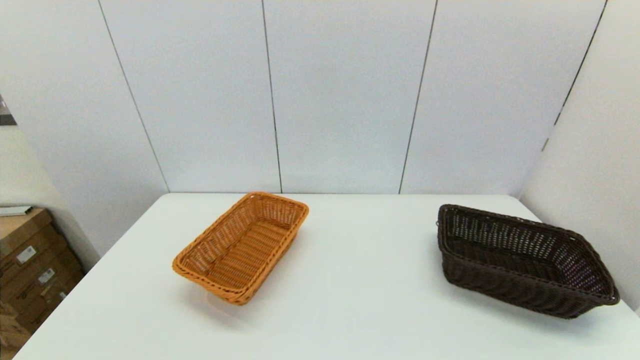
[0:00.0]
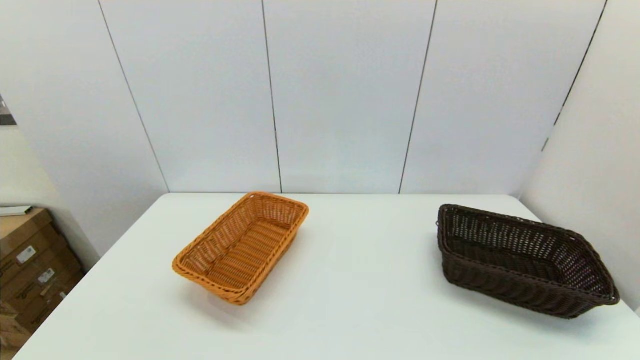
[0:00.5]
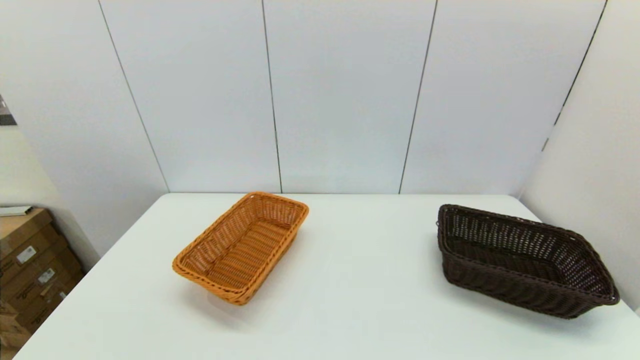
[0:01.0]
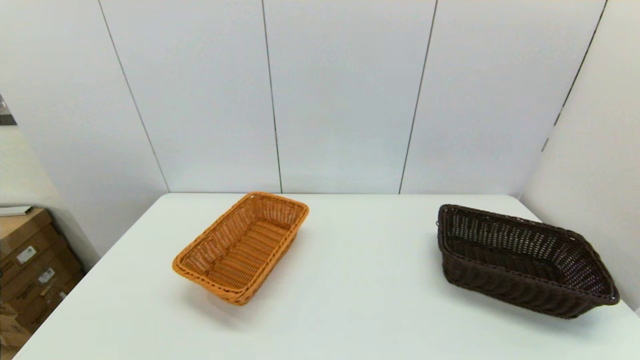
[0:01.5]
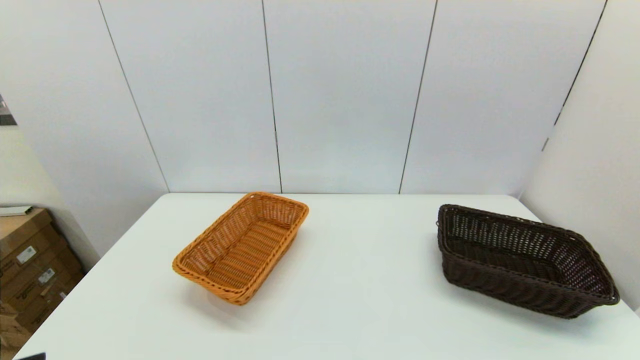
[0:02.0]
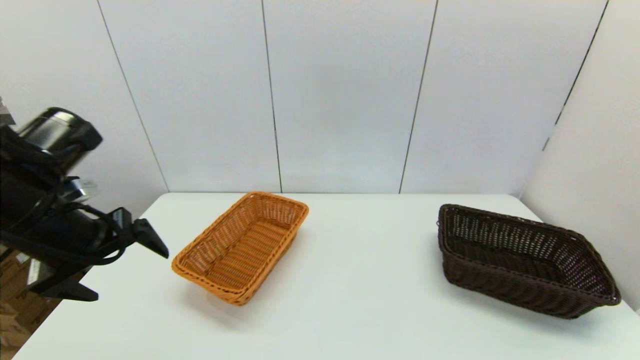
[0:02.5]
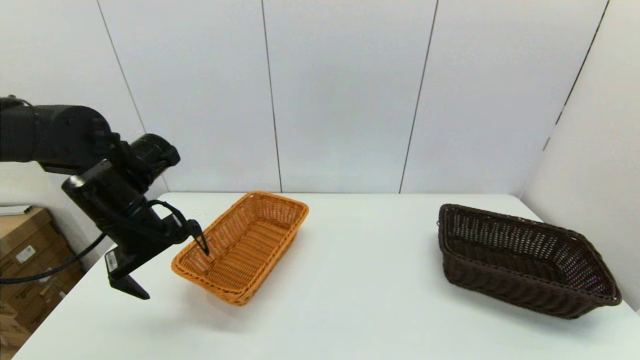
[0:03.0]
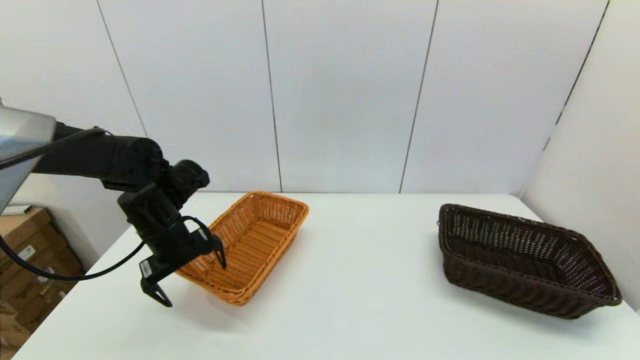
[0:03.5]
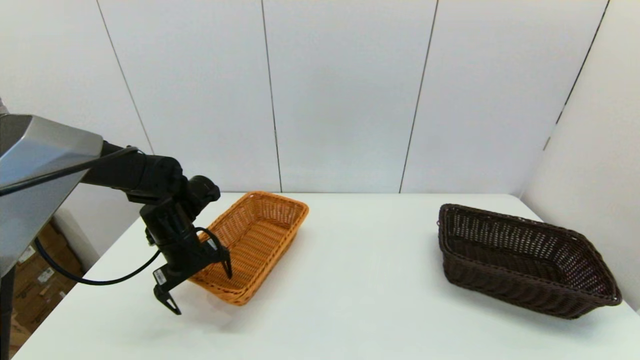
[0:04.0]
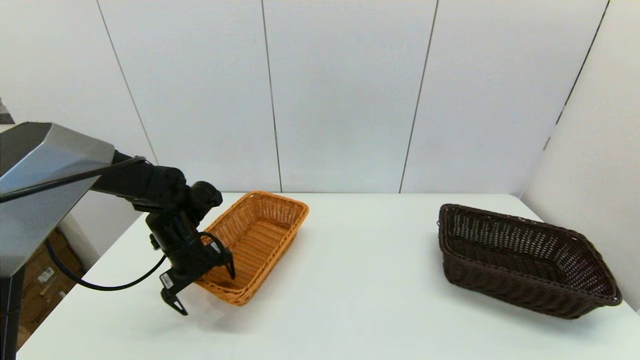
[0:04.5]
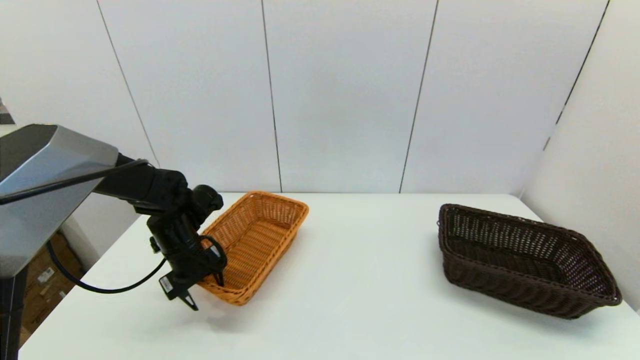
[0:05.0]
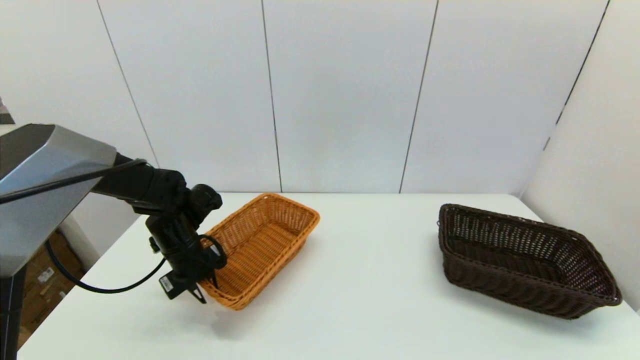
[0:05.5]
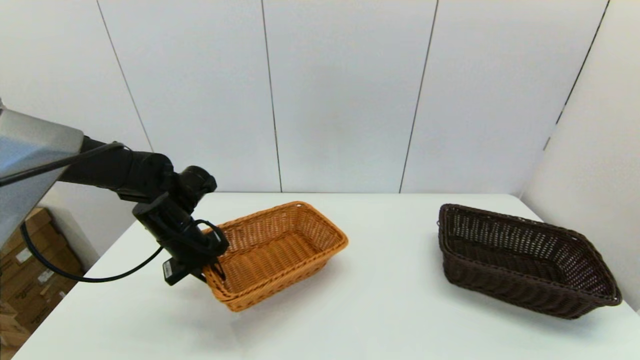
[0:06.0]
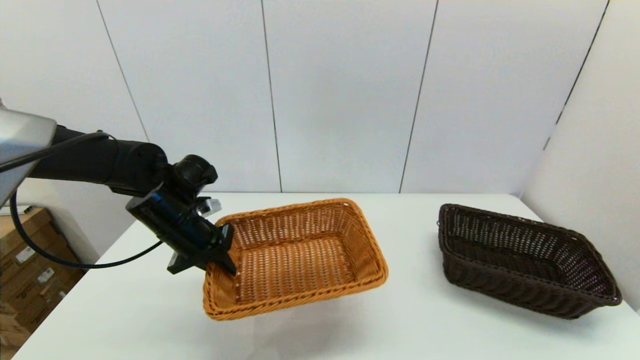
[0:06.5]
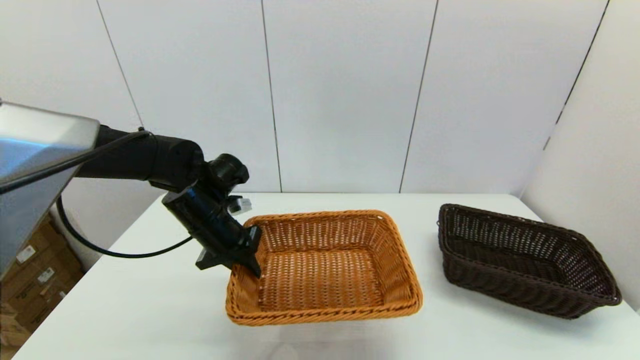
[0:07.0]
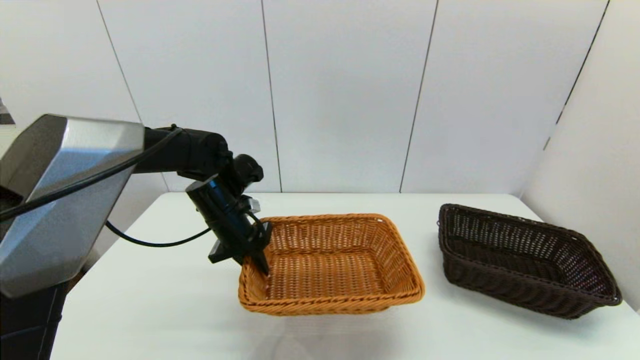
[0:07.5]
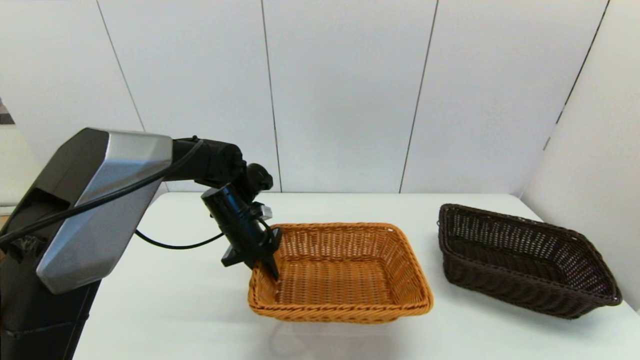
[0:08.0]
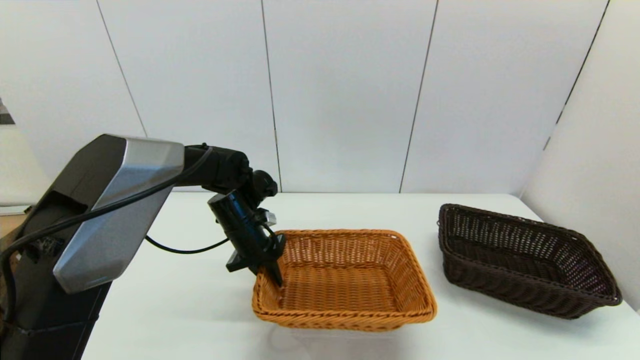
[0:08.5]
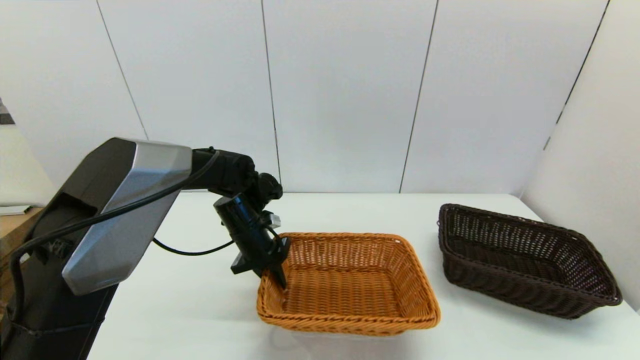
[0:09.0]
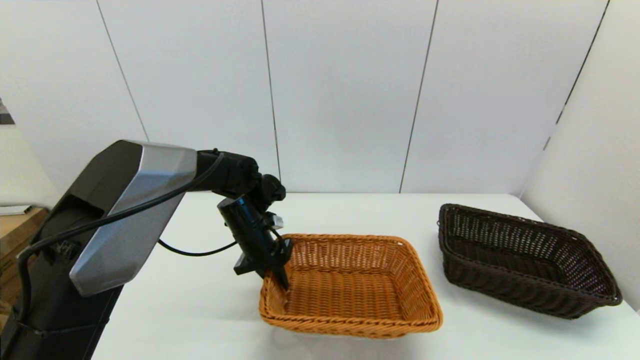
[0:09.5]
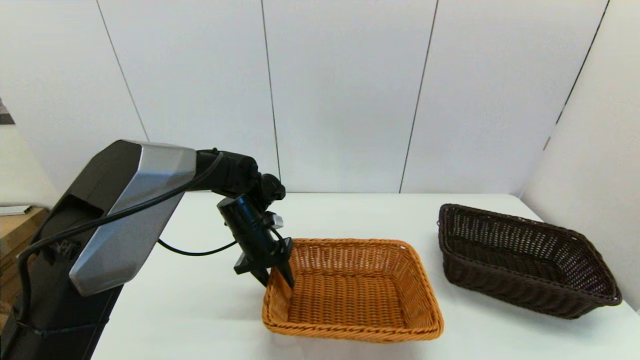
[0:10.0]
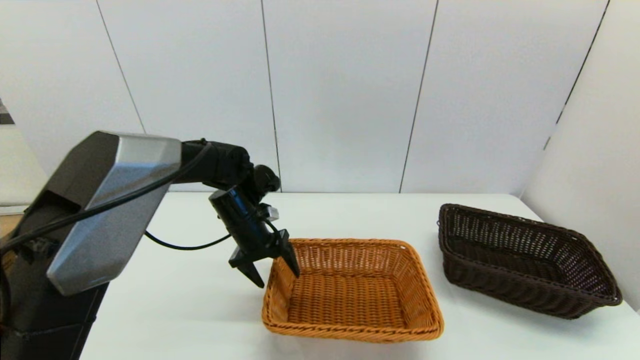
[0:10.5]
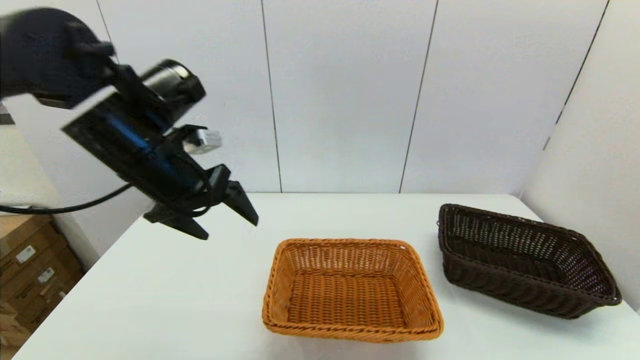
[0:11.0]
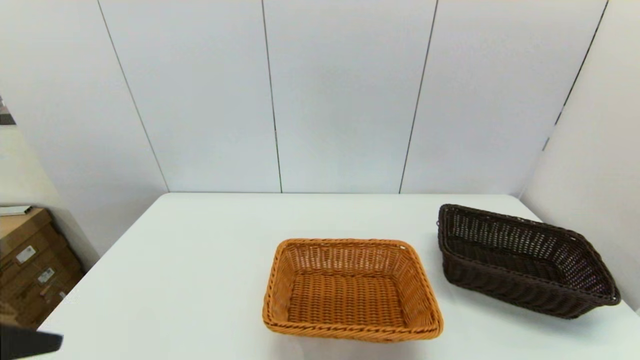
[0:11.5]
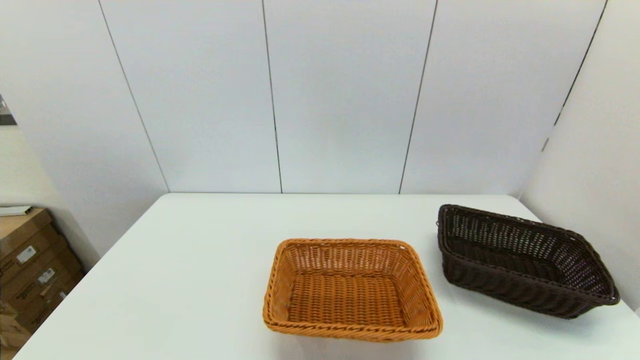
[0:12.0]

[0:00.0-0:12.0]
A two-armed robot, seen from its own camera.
Task of the whole recording: stack a basket on top of another basket.
Step, 0:02.0 to 0:06.0: Grasp the light basket with the left gripper.
Step, 0:06.5 to 0:10.5: Place the light basket on the middle of the table with the left gripper.
0:02.0 to 0:04.0: The left gripper shifts approximately 35 cm forward and downward.
0:04.0 to 0:06.0: The left gripper closes up.
0:06.0 to 0:08.0: The left gripper is displaced to the right by approximately 10 cm.
0:08.0 to 0:10.0: The grippers stay close to where they were, moving slightly.
0:10.0 to 0:12.0: The left gripper goes about 50 cm backward and to the left, and opens up.

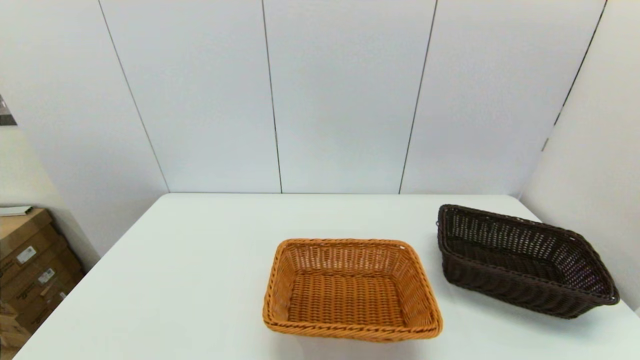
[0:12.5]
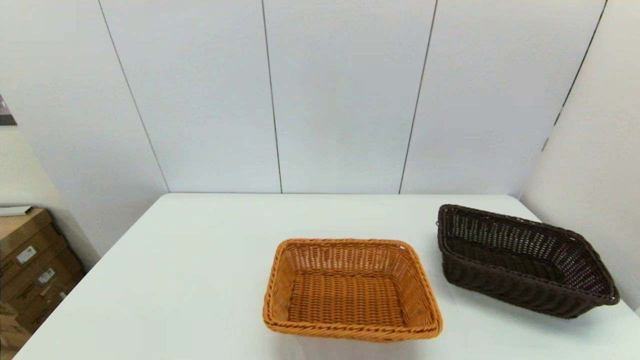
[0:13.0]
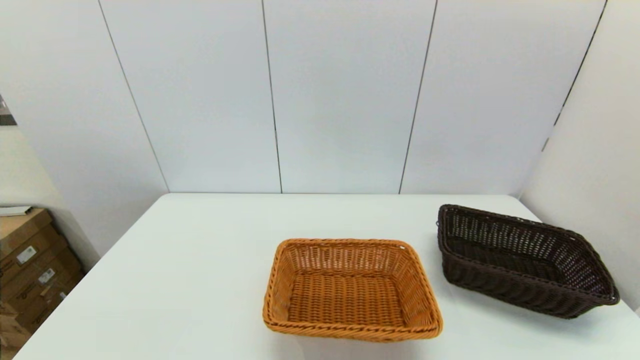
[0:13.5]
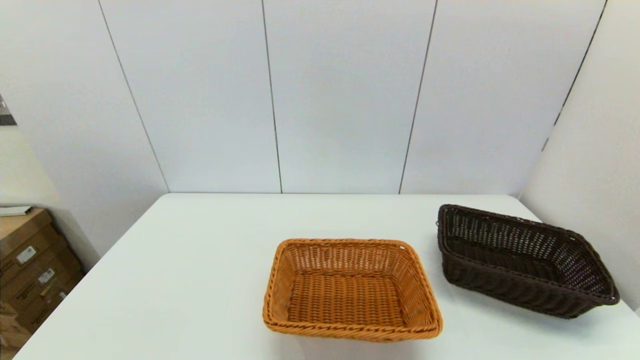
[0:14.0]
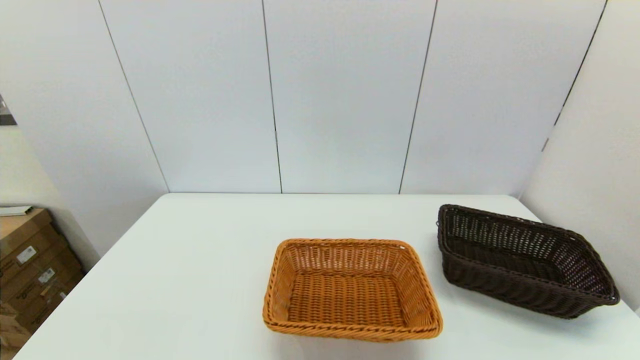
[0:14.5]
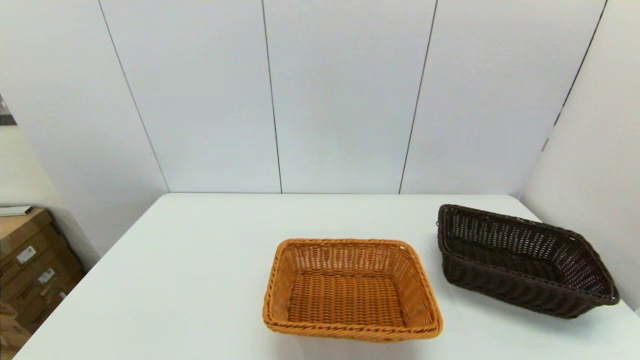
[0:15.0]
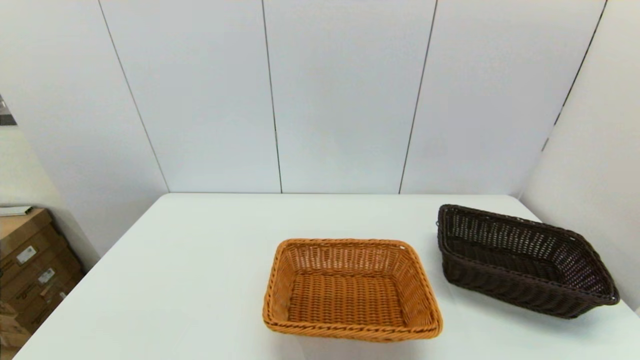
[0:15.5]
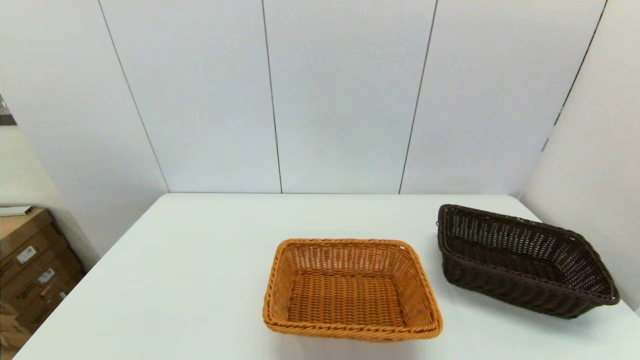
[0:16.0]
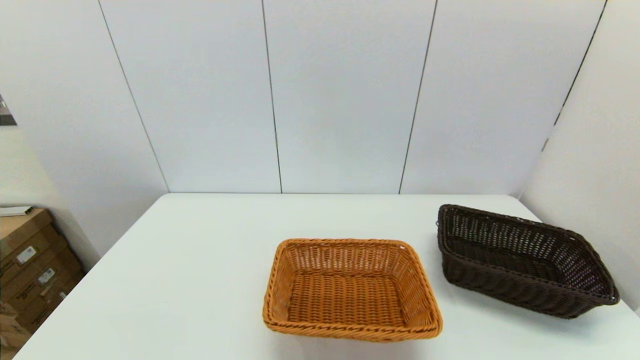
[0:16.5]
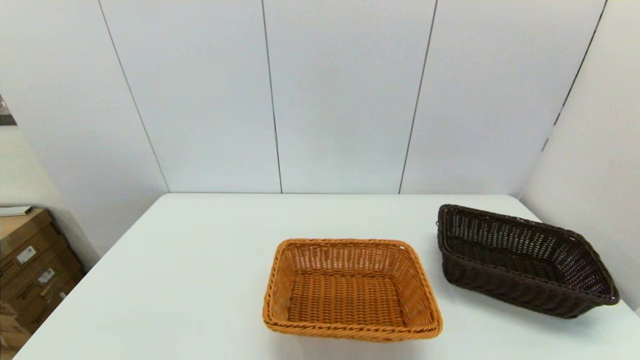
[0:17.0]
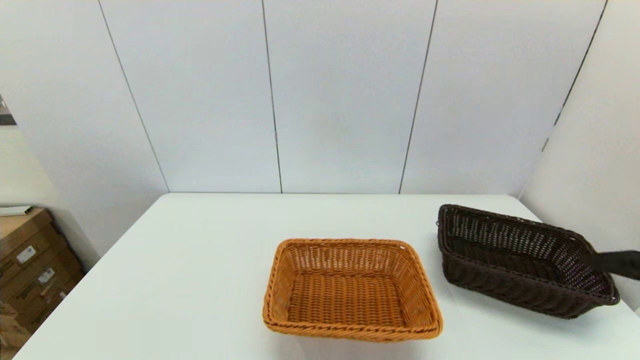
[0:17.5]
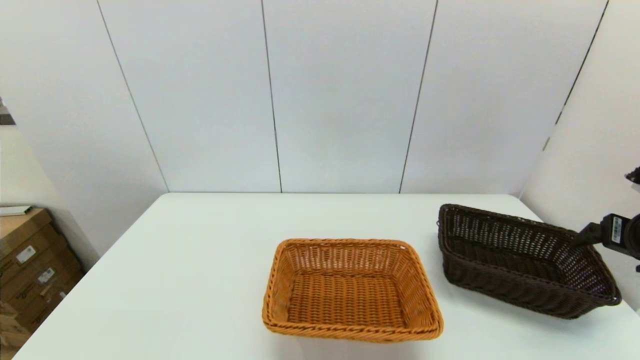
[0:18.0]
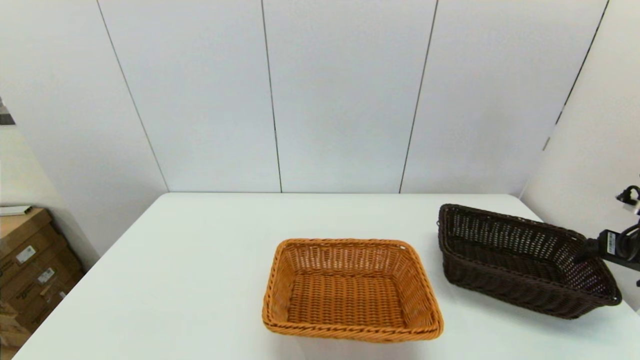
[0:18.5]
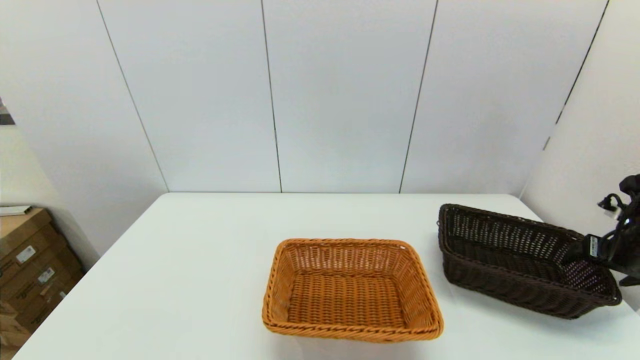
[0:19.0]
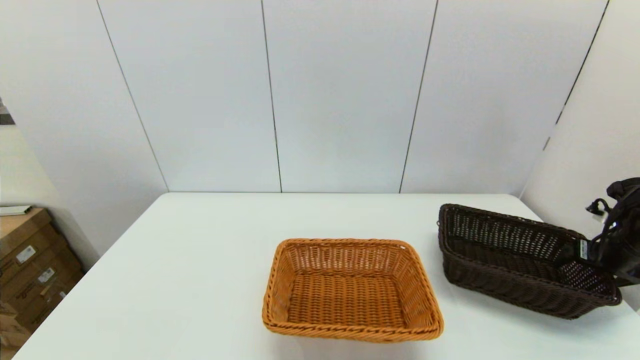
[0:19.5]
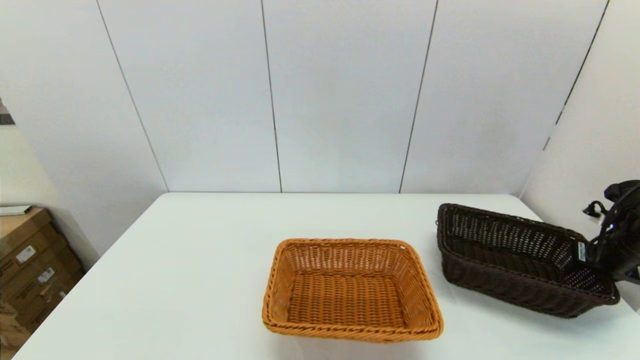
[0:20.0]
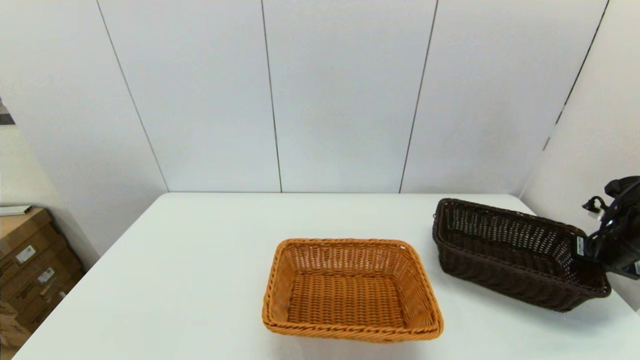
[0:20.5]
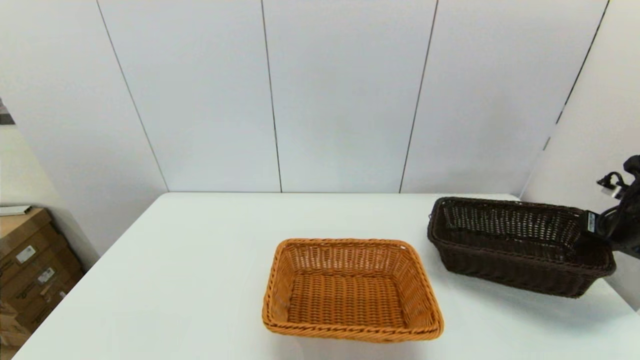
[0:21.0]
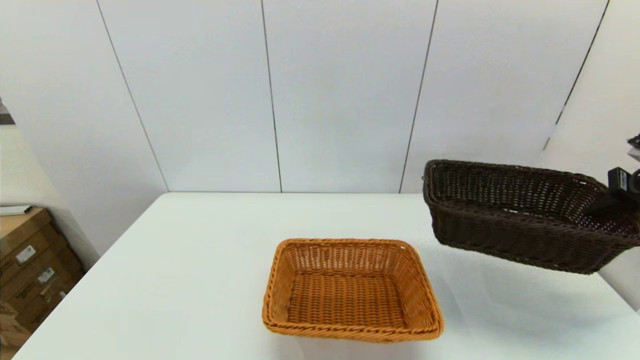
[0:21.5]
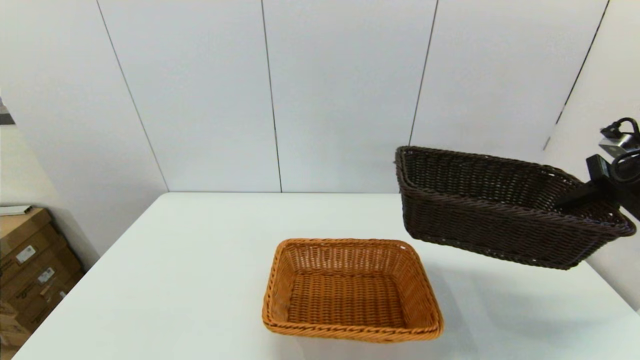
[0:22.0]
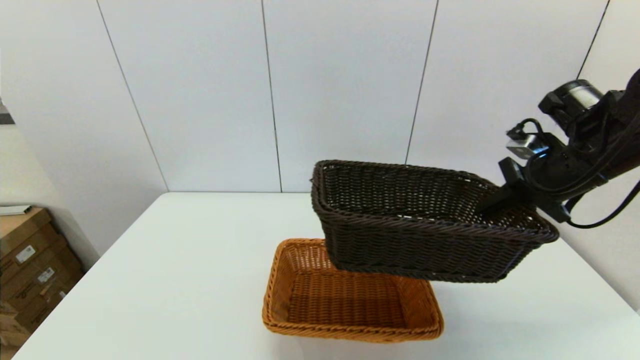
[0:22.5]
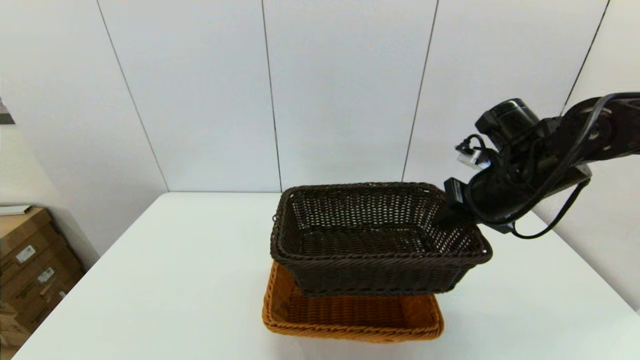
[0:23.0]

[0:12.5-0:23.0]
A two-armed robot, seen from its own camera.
Task of the whole recording: stack a basket on top of another basket.
Step, 0:12.5 to 0:20.0: Grasp the dark basket with the right gripper.
0:16.5 to 0:19.0: The right gripper goes about 40 cm forward and to the right.
0:19.0 to 0:21.0: The right gripper closes its fingers.
0:21.0 to 0:23.0: The right gripper travels to the left by roughly 25 cm.
